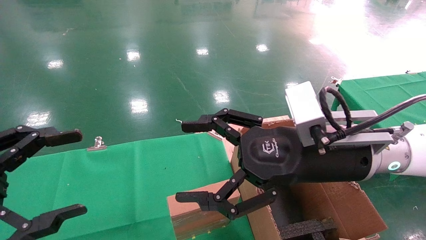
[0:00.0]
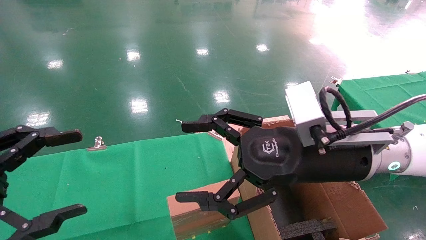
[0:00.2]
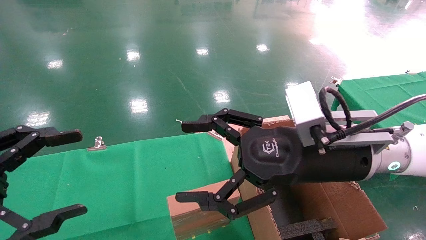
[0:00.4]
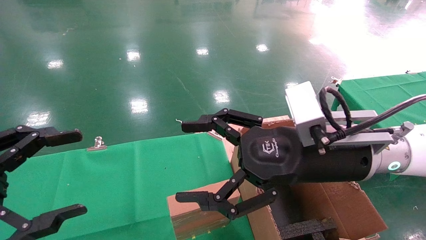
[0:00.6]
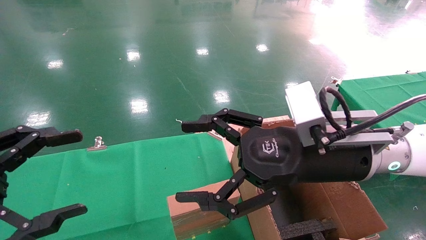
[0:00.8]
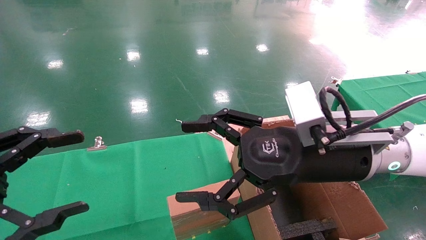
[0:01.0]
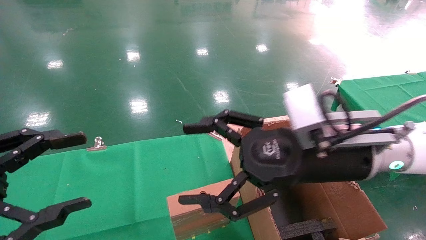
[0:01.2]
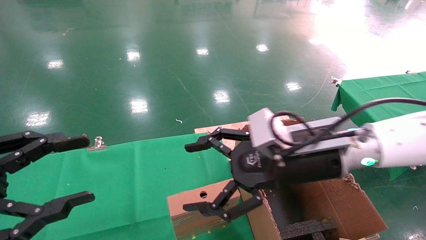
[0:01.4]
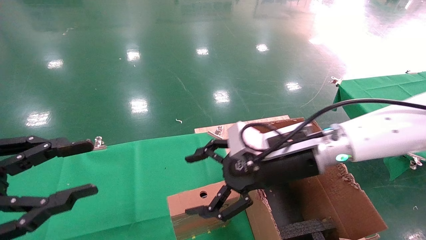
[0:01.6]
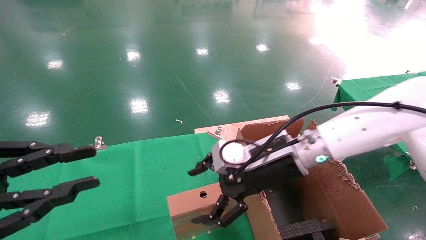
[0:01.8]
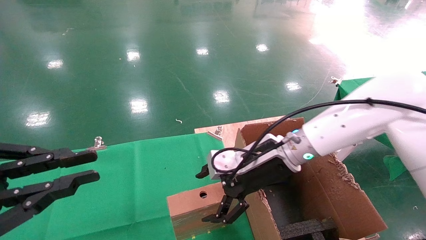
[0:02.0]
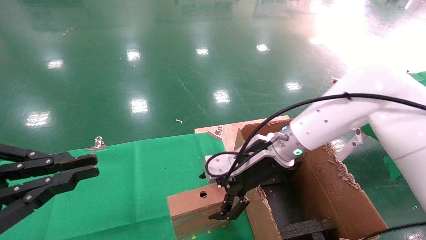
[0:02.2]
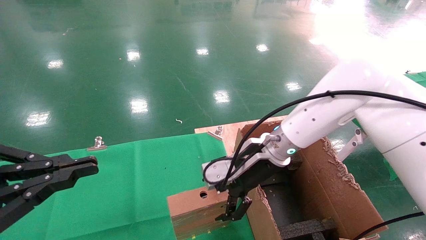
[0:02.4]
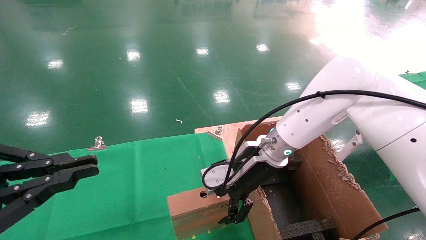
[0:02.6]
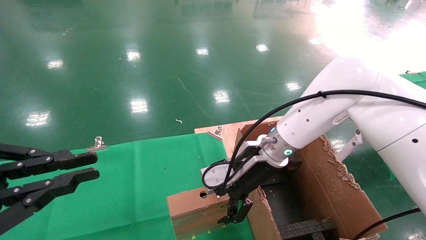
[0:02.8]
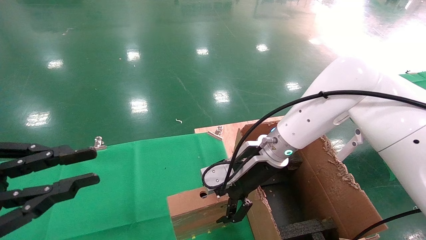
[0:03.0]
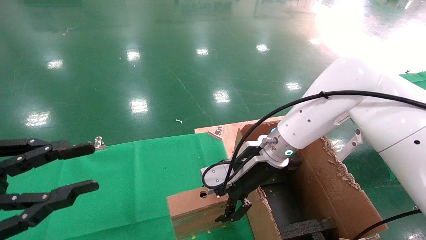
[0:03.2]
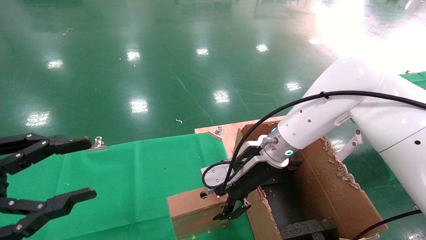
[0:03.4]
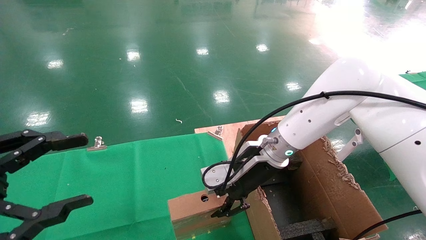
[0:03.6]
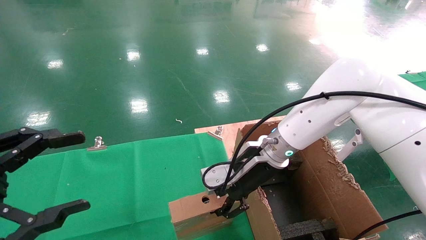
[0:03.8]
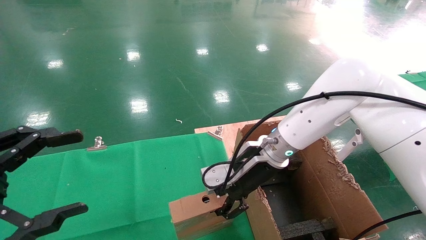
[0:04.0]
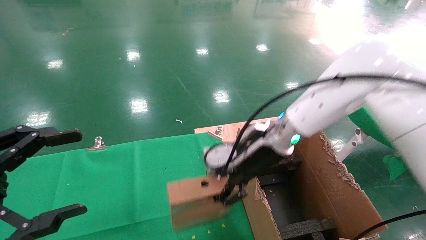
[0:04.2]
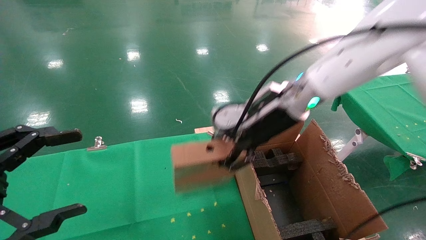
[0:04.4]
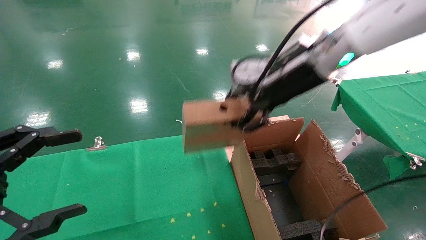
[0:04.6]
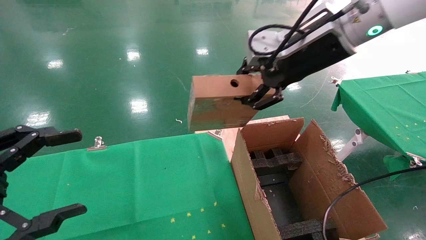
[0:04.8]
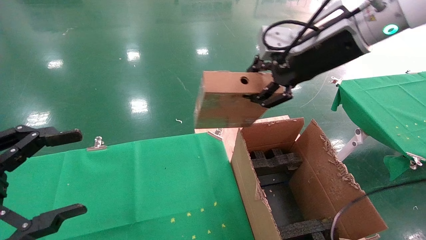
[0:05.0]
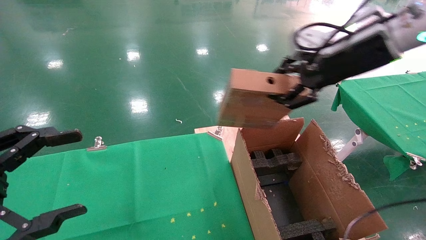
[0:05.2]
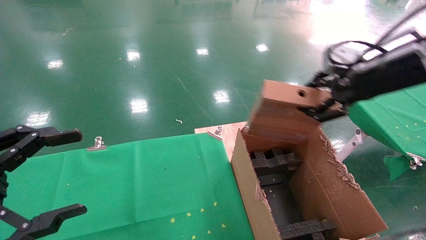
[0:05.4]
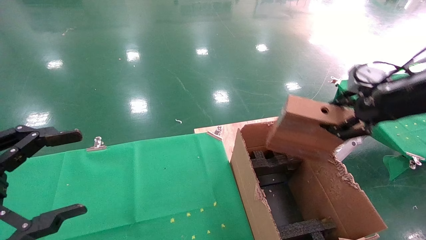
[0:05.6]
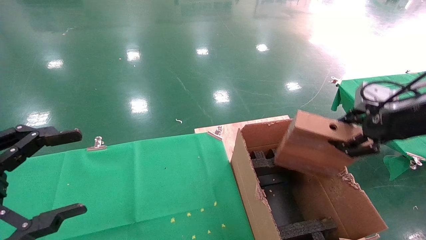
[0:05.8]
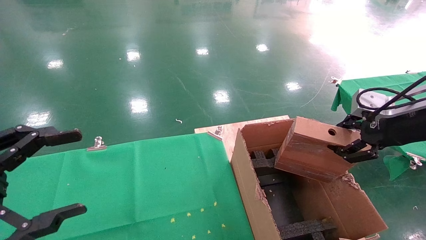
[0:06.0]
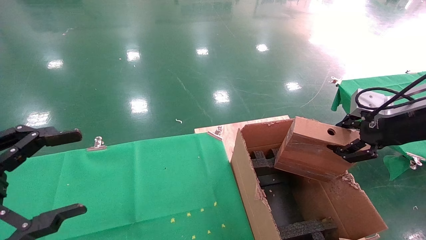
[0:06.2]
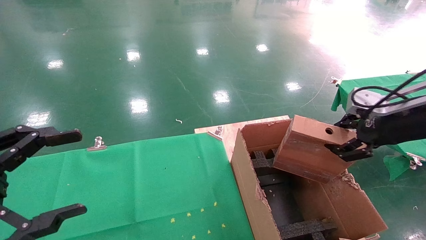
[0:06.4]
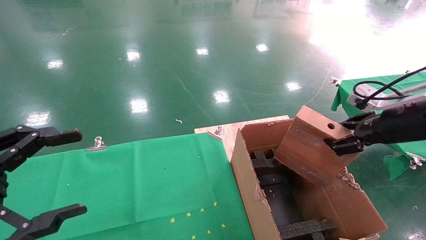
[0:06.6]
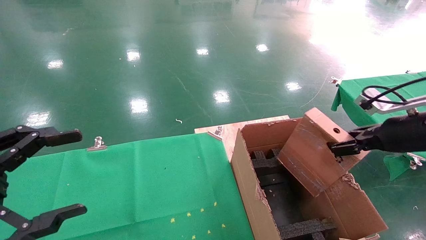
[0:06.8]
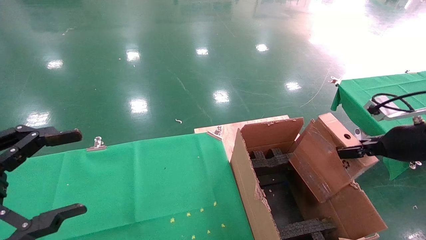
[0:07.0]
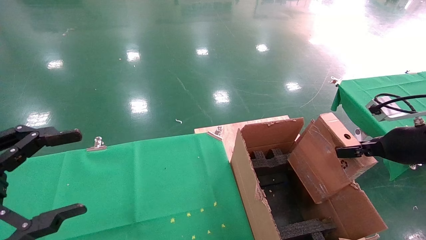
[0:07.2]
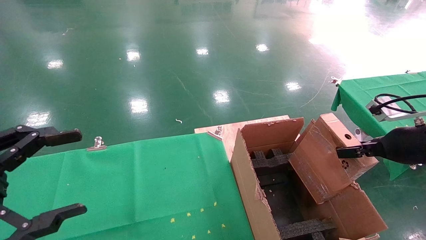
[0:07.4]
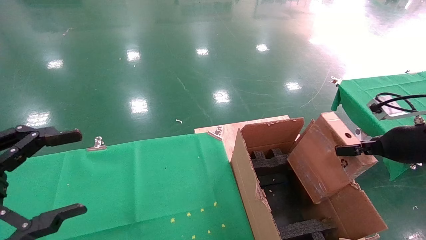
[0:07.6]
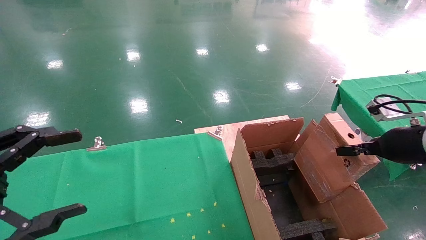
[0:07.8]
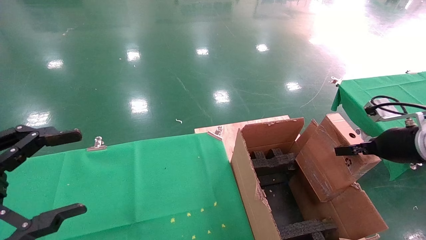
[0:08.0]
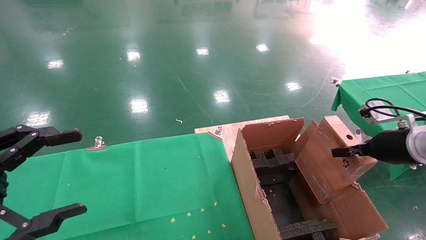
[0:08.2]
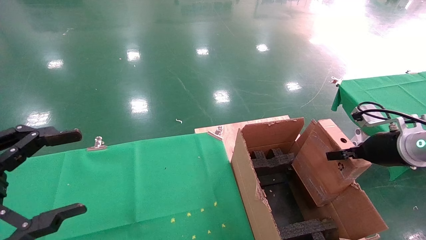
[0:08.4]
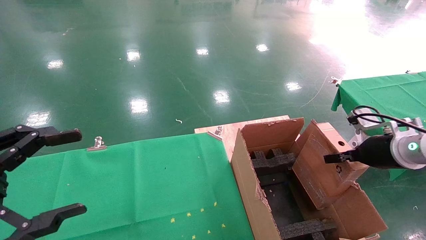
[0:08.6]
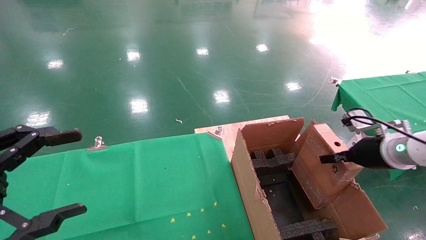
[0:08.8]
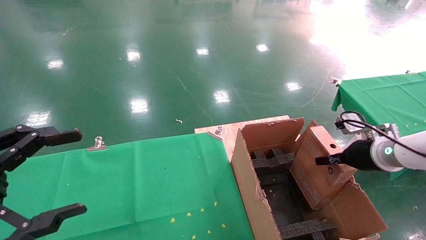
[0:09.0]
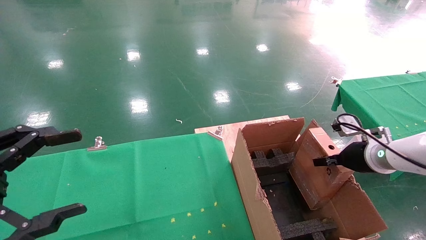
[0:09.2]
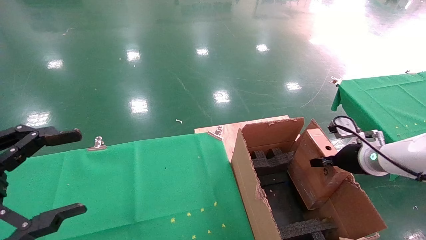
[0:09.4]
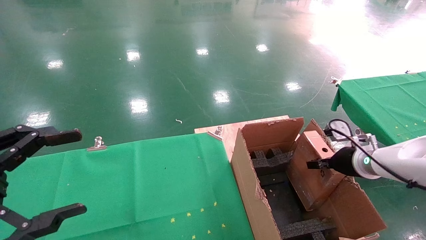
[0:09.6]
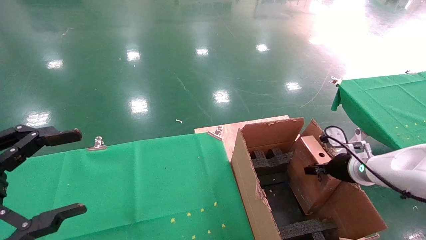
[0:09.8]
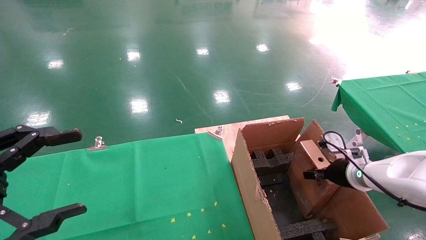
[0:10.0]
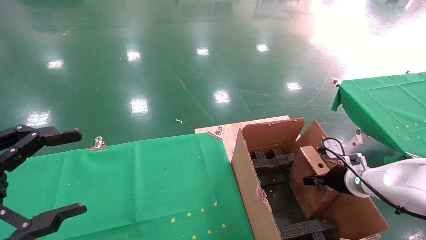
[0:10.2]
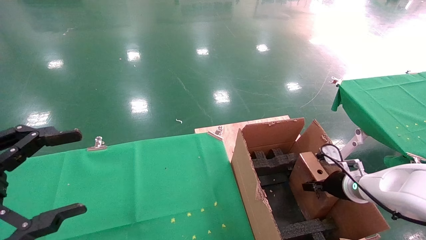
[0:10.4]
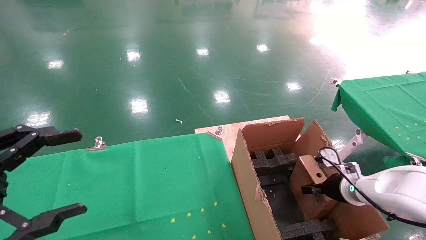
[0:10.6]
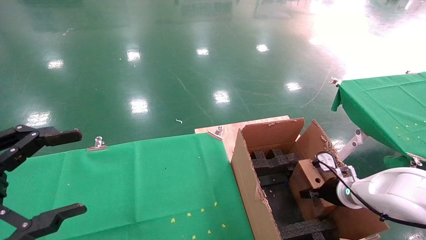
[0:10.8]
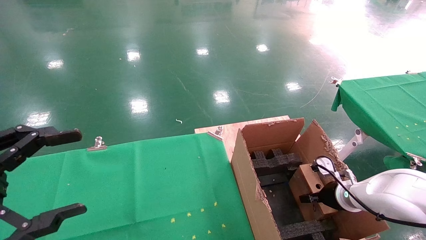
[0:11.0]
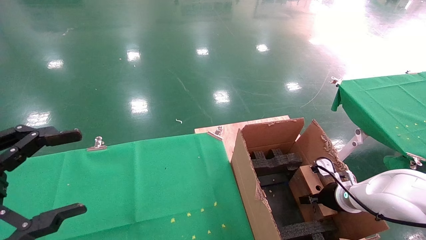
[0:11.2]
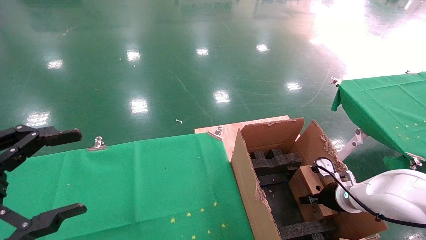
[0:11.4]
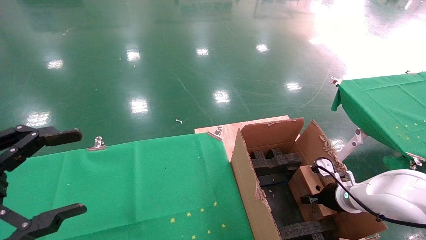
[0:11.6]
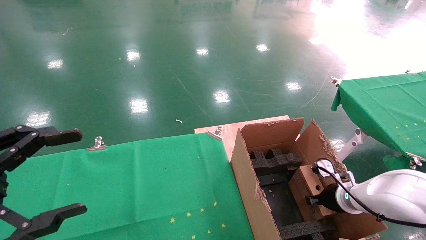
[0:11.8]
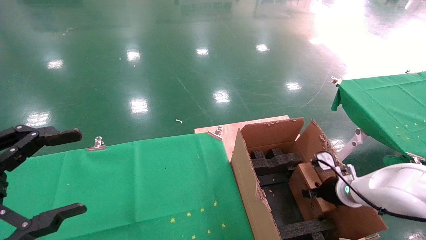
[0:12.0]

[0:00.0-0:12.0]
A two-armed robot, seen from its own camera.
Task of the whole recording: using a robotic arm to pick up a cardboard box and palace it the carton.
Step, 0:01.4 to 0:03.6: Pick up the mouse and the power cord paper box.
0:00.0 to 0:01.6: The right gripper shifts approximately 5 cm forward, while the left gripper closes up.
0:01.6 to 0:03.0: The right gripper heads forward, covering about 5 cm. The left gripper closes up.
0:03.0 to 0:04.4: The left gripper opens its fingers. Meanwhile the right gripper is displaced upward by about 10 cm, and closes.
0:04.4 to 0:06.0: The right gripper heads to the right and backward, covering some 25 cm.
0:06.0 to 0:07.6: The right gripper goes about 5 cm downward.
0:07.6 to 0:09.0: The right gripper shifts some 10 cm forward and downward.
0:09.0 to 0:10.4: The right gripper shifts roughly 10 cm downward.
0:10.4 to 0:12.0: The right gripper opens up.

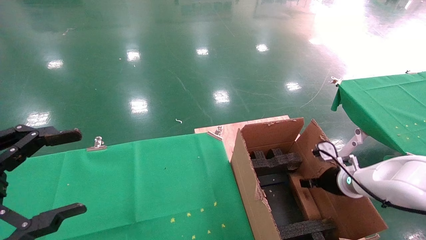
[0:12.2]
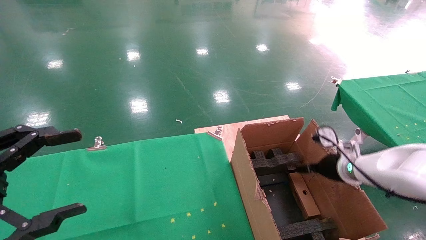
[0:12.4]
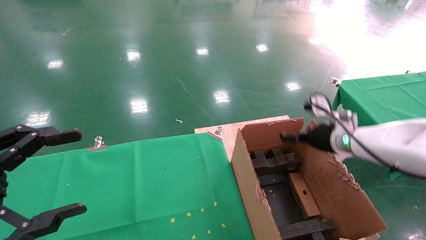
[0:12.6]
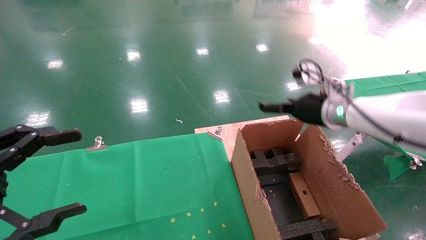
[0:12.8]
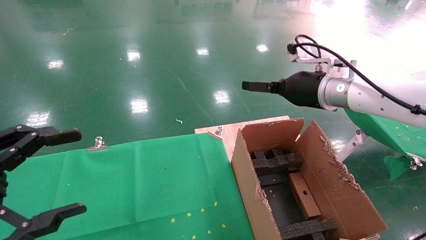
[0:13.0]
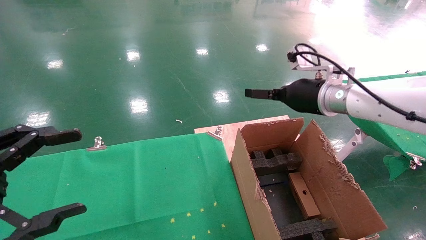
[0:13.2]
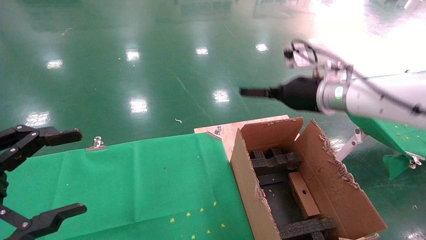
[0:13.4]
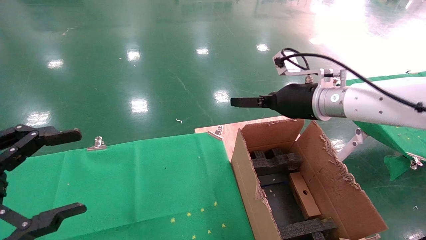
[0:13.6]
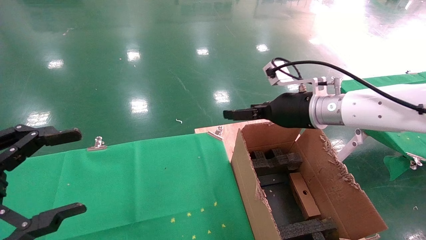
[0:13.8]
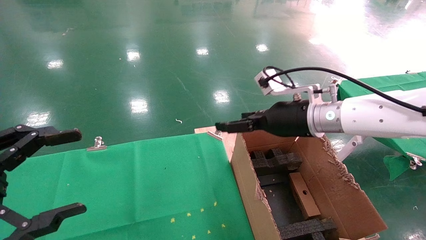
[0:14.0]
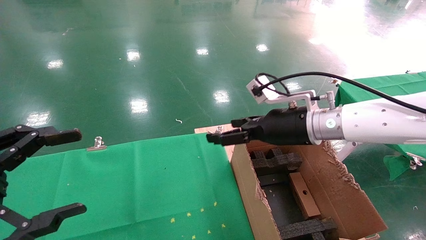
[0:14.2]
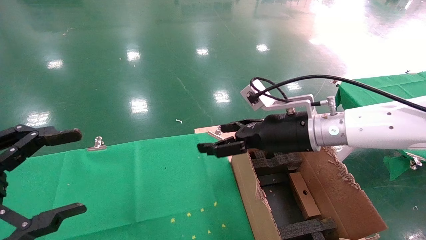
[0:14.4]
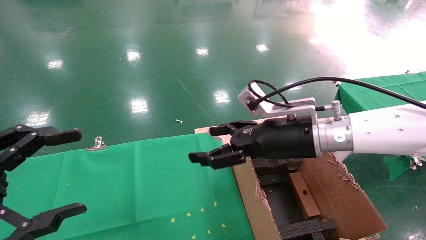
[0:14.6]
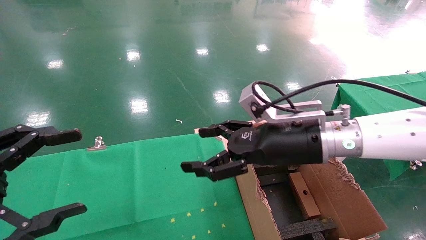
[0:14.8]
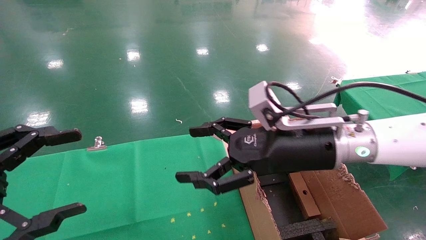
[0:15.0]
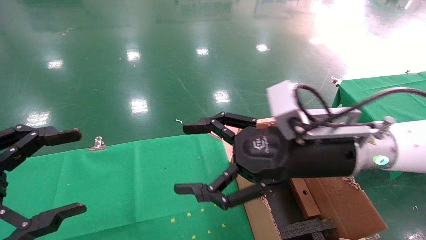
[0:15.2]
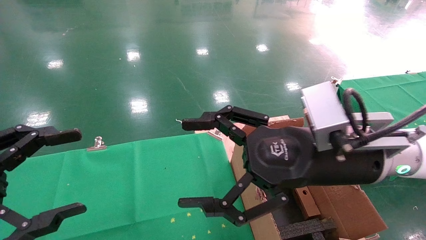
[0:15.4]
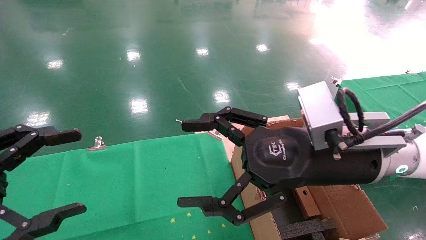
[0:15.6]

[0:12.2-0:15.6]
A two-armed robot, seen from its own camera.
Task of the whole recording: using a robotic arm to pick up a cardboard box and palace it the carton.
0:12.2 to 0:13.8: The right gripper travels upward and to the left by approximately 20 cm, and opens its fingers.
0:13.8 to 0:15.6: The right gripper shifts some 15 cm backward.

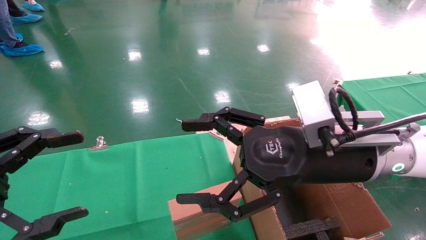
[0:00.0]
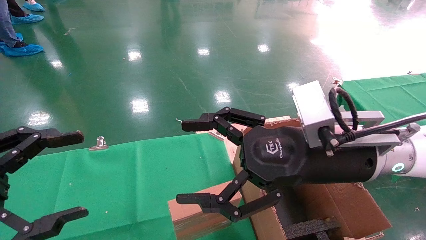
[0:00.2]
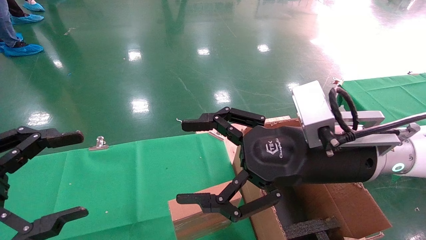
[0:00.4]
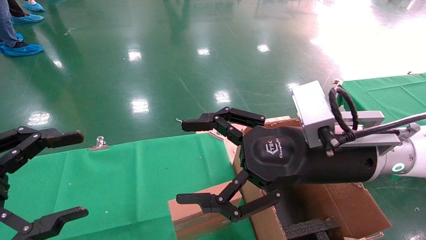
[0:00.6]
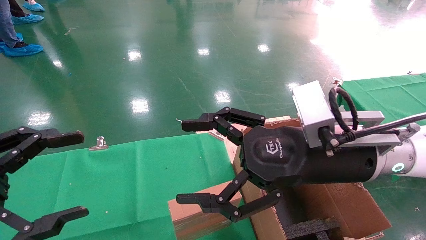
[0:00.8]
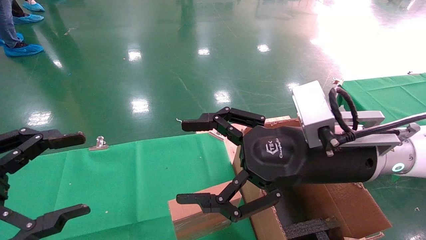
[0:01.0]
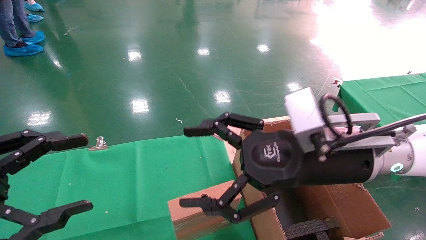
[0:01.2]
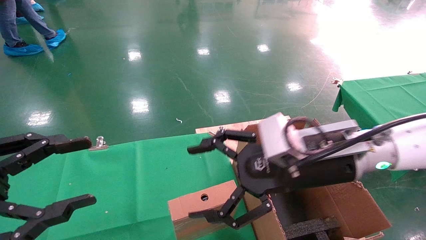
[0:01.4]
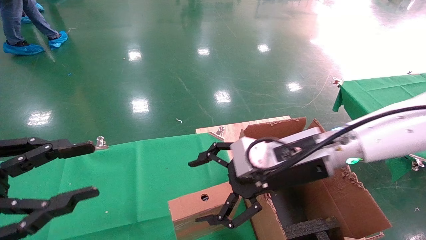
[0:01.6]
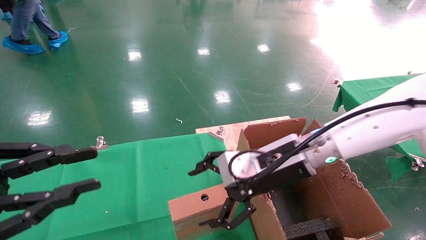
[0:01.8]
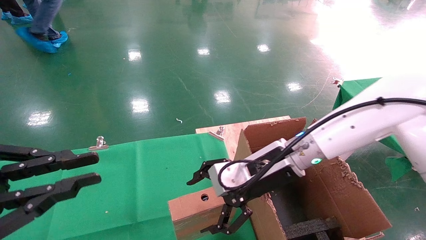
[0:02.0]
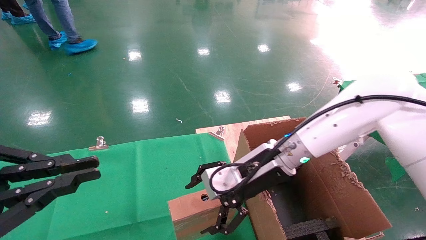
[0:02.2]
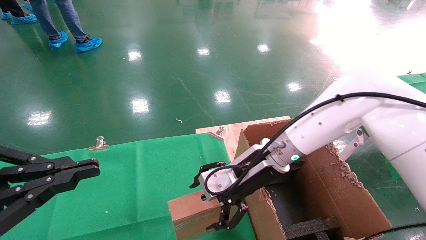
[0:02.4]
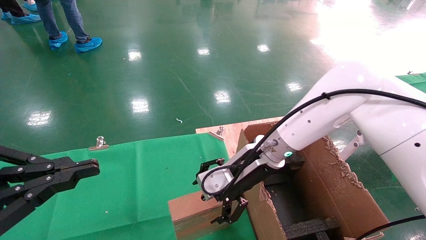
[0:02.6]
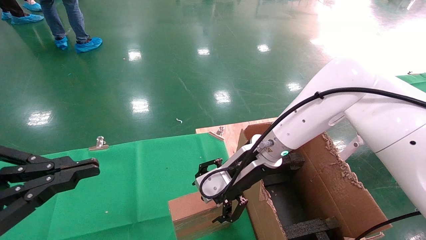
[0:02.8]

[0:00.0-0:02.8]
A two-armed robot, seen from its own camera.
Task of the whole recording: using a robotic arm to pick up a cardboard box and palace it the carton.
0:01.4 to 0:02.8: The right gripper moves forward and to the left, approximately 10 cm. The left gripper closes.
